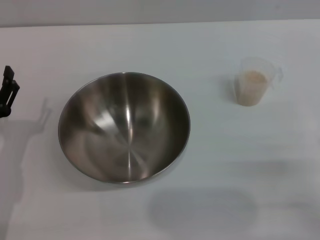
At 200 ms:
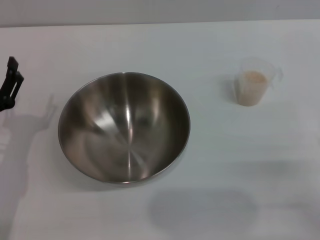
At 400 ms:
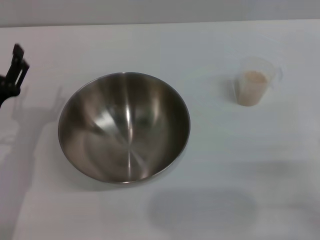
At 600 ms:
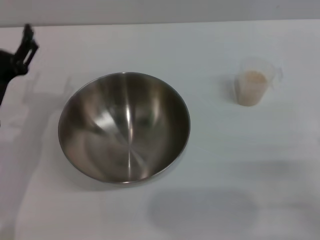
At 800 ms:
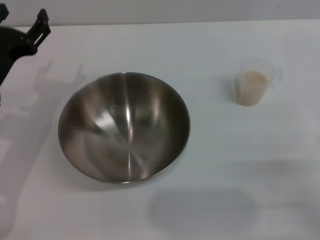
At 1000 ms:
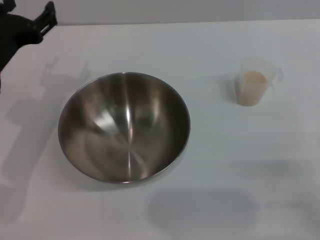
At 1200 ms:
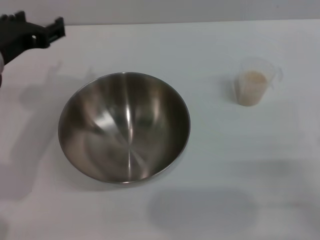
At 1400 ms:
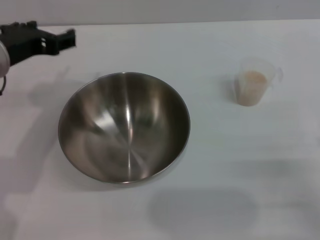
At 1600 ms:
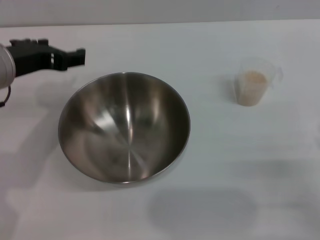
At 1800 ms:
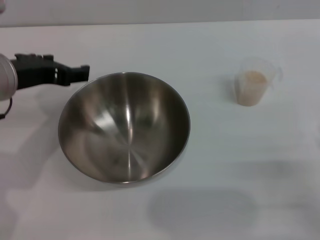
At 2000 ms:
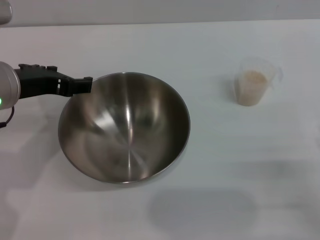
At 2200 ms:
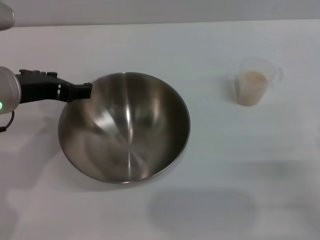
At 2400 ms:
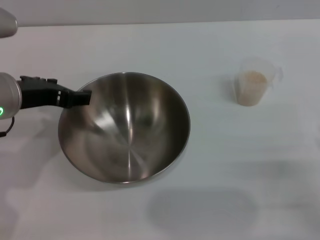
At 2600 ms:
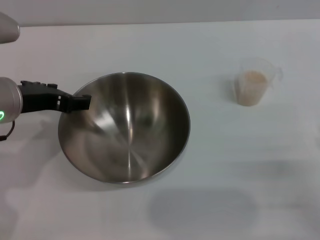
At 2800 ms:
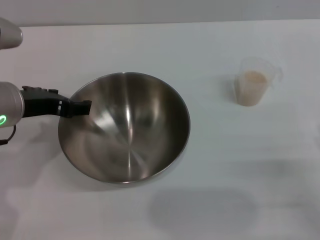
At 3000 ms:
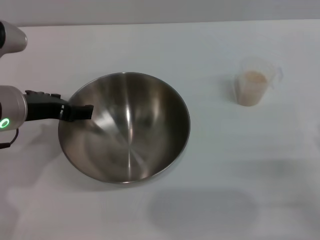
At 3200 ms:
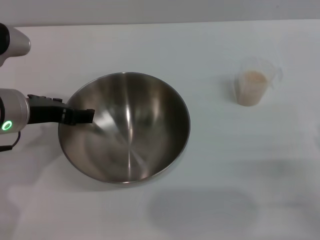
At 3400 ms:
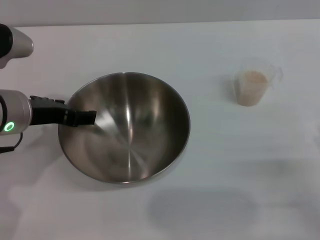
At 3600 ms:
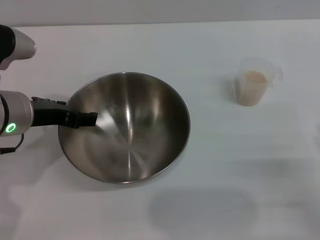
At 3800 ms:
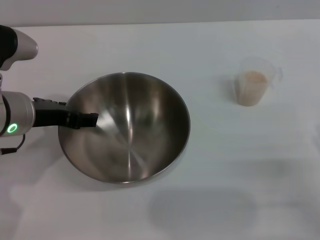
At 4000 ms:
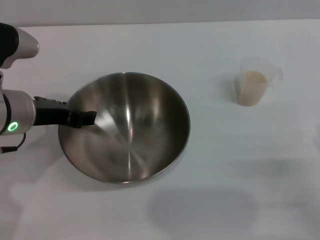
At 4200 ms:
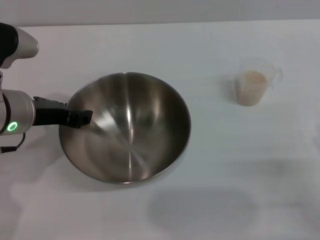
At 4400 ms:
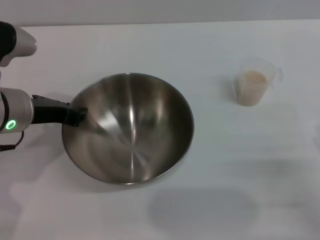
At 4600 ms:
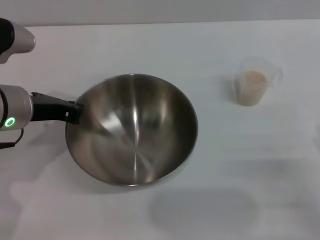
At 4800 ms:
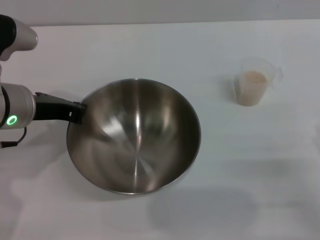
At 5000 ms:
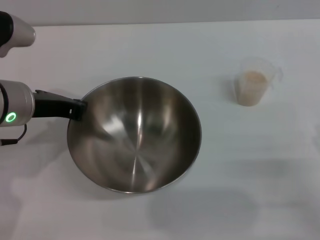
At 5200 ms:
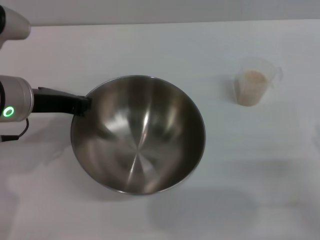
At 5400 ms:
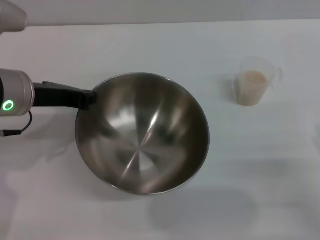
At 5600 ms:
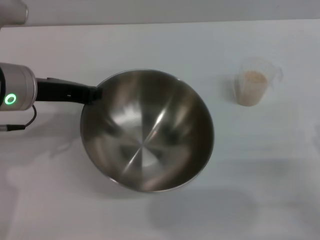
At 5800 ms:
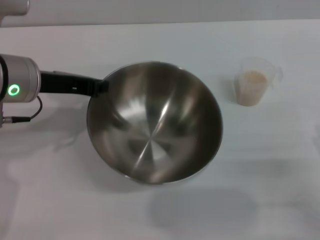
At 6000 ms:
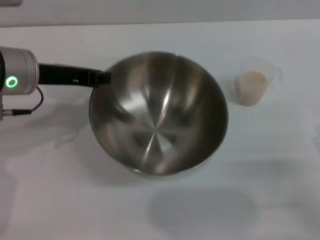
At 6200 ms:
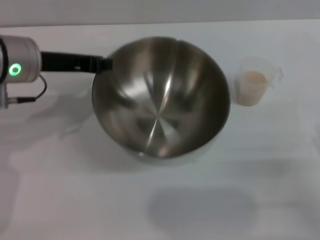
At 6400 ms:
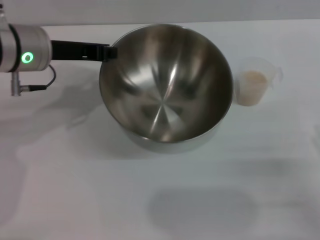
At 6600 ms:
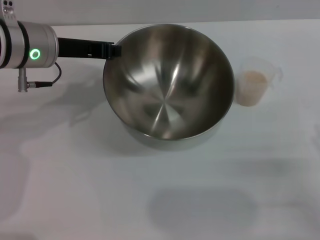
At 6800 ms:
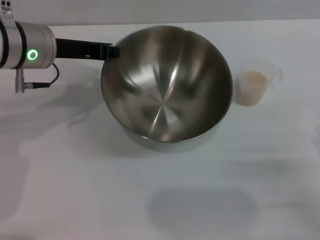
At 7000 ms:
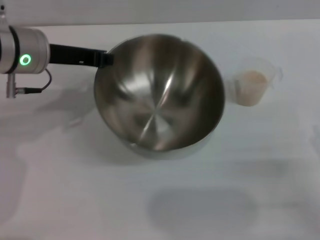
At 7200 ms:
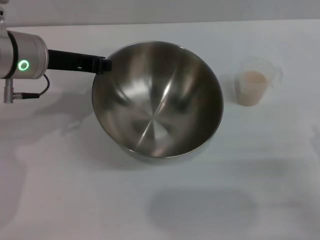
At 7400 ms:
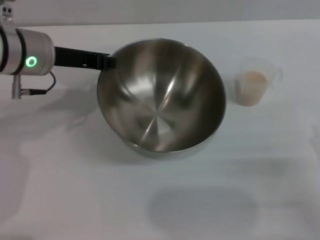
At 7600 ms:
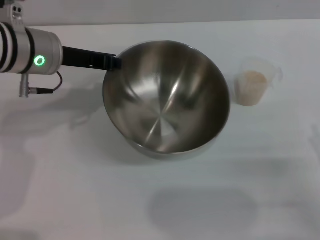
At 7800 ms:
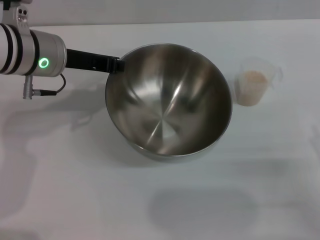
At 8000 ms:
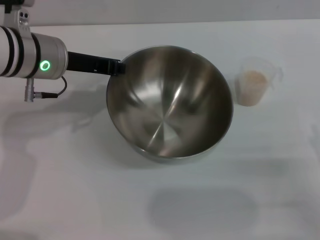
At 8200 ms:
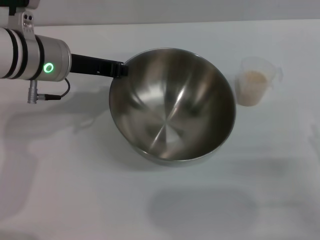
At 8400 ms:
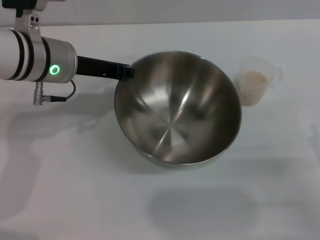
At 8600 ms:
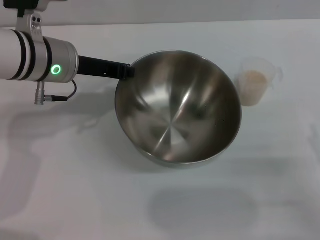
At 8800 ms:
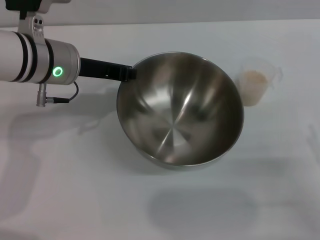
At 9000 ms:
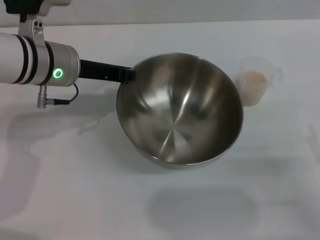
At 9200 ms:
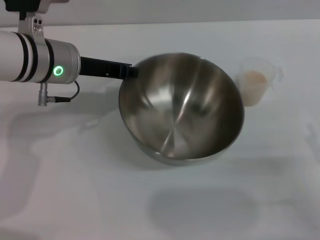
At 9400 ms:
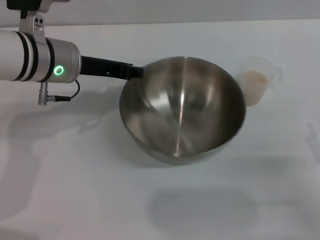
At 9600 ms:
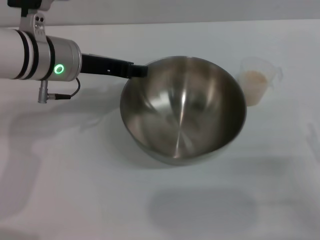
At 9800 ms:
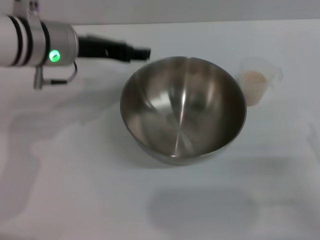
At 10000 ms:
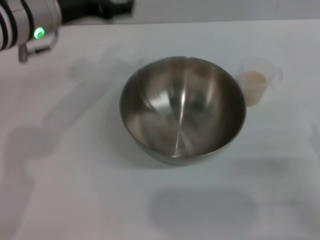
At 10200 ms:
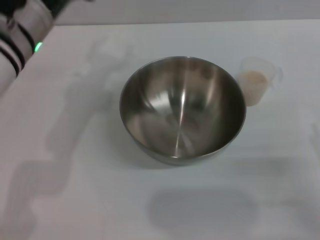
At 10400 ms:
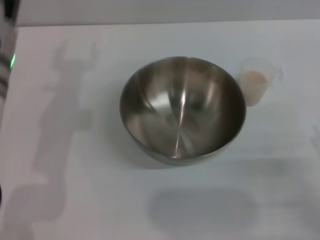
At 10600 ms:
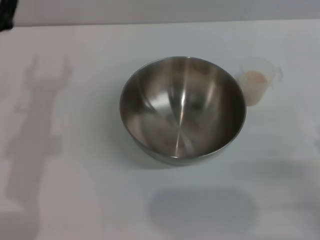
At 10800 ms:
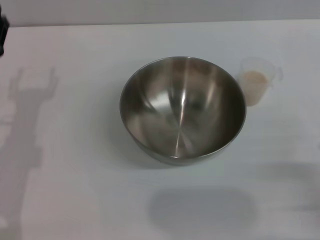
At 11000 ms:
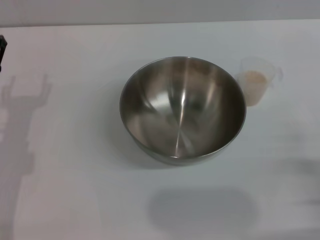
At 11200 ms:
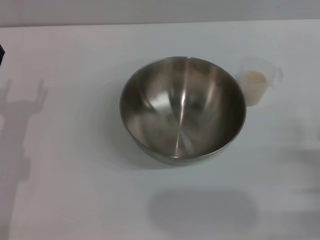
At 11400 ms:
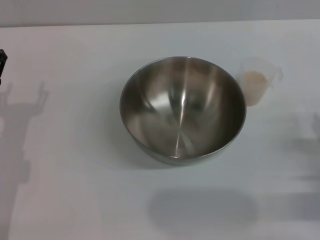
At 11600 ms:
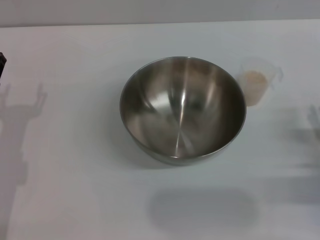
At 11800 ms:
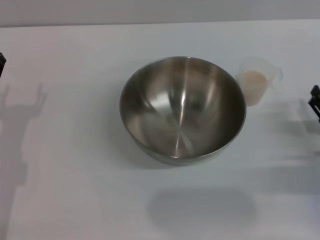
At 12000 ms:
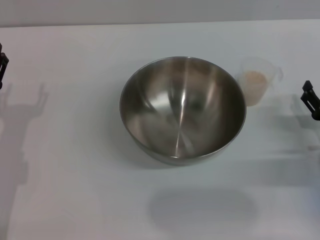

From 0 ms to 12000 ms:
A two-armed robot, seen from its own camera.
Task of the whole recording: Place the bowl in the middle of the table with one hand and pour the rice from the grain cup into it with the other hand.
Step, from 0 ms to 6000 ms: Pick up the bowl with the left gripper.
Step, from 6200 ms to 10000 ms: Place the bowl in the center of view with the left gripper.
From 0 ms to 1600 ms: The left gripper moves upward and forward, roughly 20 cm.
From 1600 ms to 3000 ms: The grippers stay close to where they were, moving slightly.
From 3000 ms to 4400 ms: The left gripper closes.
From 4400 ms to 6000 ms: The left gripper closes up.
From 7600 ms to 9000 ms: The grippers make only small movements.
From 9000 ms to 10400 ms: The left gripper goes approximately 5 cm backward, and opens its fingers.
From 10400 ms to 12000 ms: The left gripper goes some 15 cm downward, to the left and backward. The right gripper shifts about 10 cm forward.

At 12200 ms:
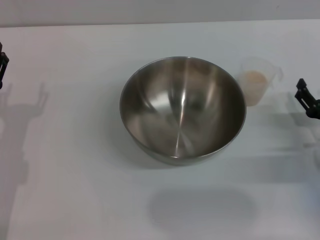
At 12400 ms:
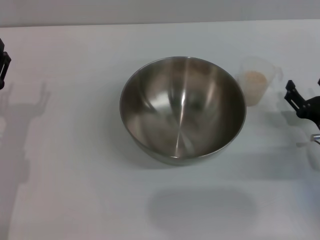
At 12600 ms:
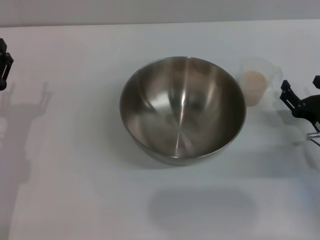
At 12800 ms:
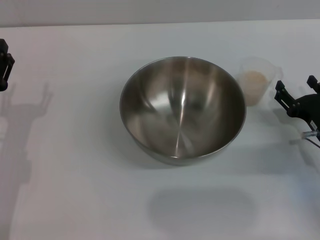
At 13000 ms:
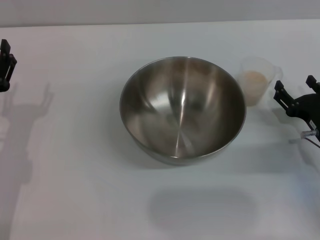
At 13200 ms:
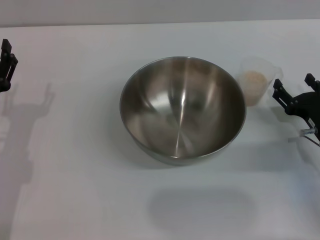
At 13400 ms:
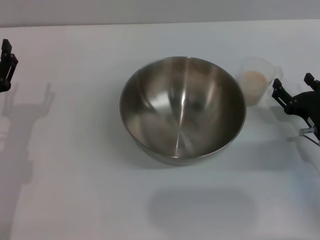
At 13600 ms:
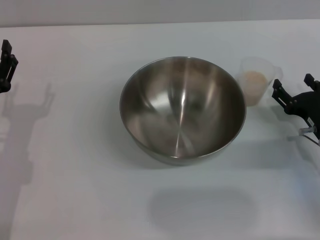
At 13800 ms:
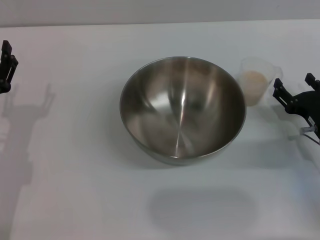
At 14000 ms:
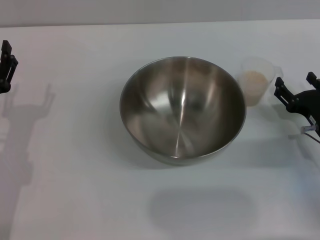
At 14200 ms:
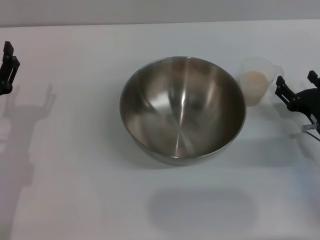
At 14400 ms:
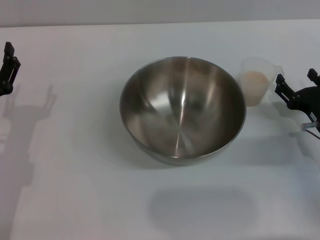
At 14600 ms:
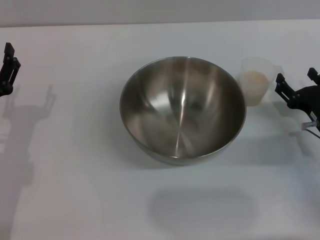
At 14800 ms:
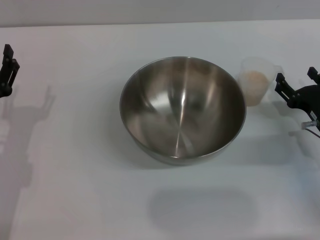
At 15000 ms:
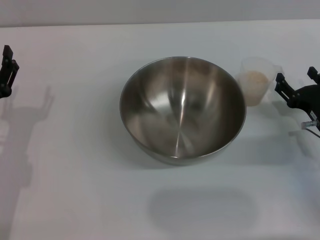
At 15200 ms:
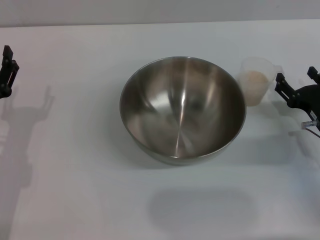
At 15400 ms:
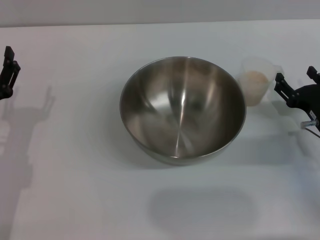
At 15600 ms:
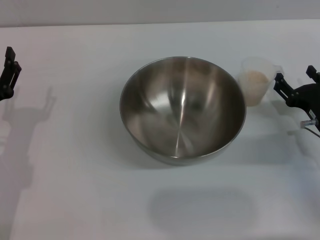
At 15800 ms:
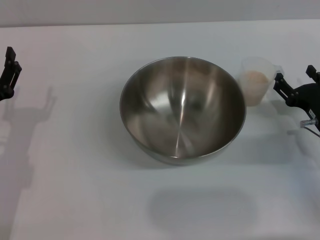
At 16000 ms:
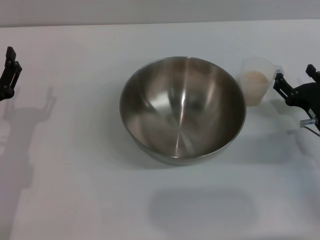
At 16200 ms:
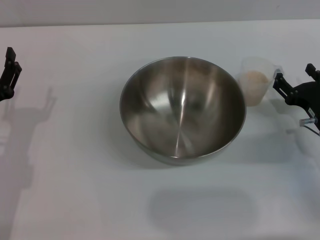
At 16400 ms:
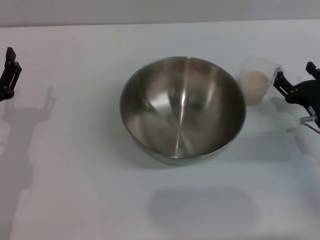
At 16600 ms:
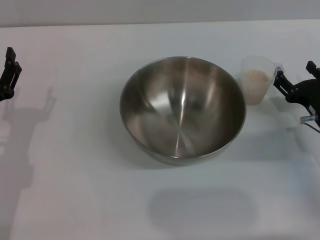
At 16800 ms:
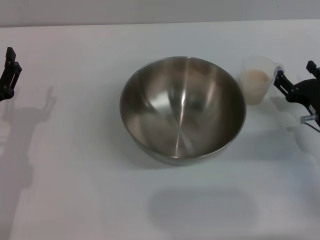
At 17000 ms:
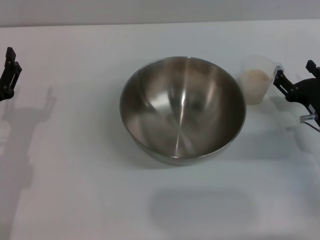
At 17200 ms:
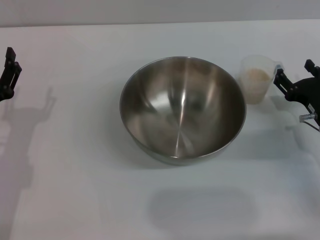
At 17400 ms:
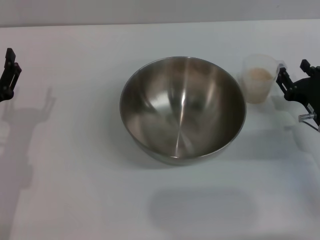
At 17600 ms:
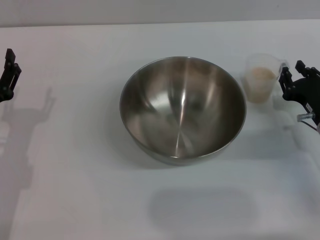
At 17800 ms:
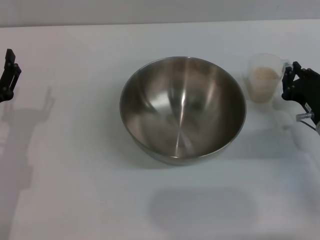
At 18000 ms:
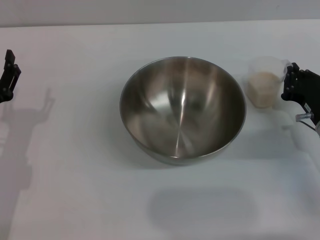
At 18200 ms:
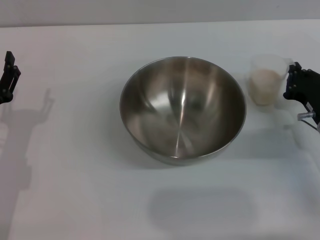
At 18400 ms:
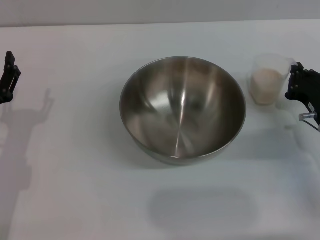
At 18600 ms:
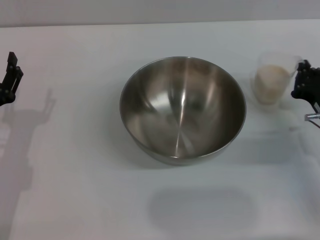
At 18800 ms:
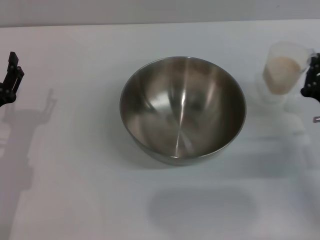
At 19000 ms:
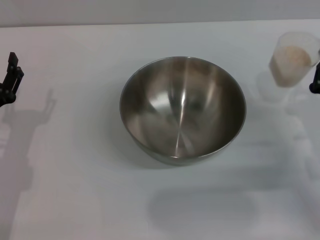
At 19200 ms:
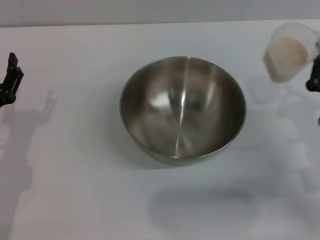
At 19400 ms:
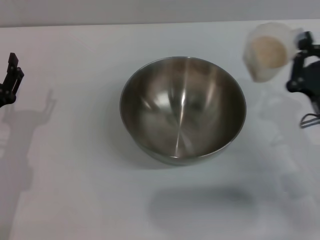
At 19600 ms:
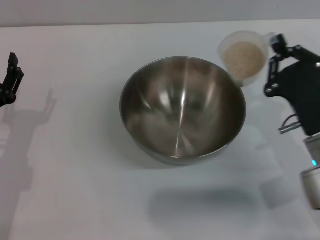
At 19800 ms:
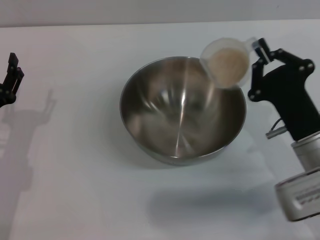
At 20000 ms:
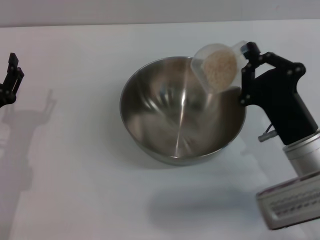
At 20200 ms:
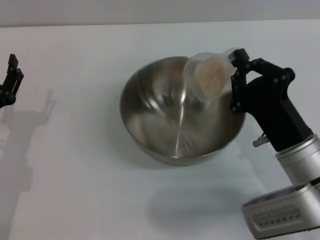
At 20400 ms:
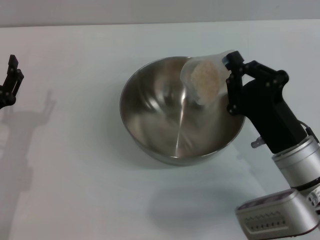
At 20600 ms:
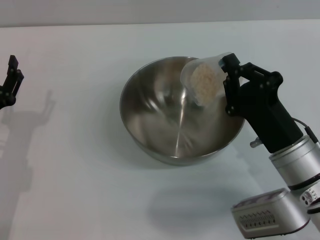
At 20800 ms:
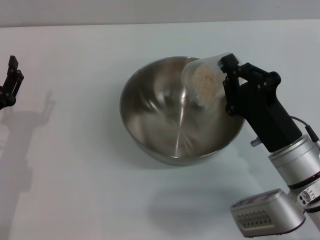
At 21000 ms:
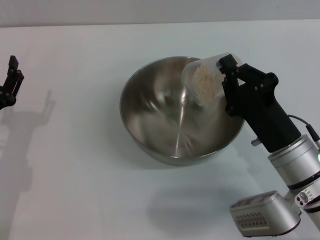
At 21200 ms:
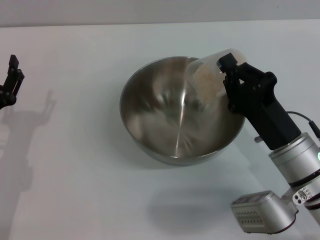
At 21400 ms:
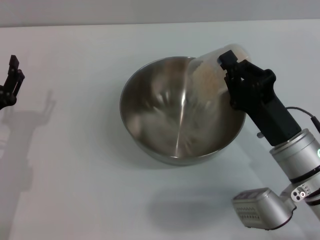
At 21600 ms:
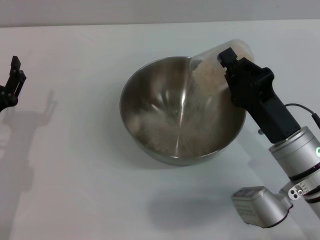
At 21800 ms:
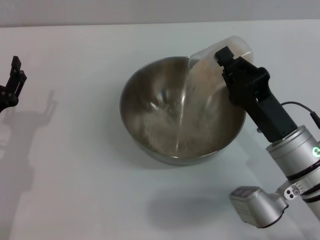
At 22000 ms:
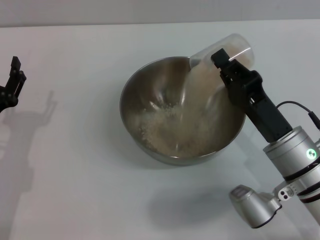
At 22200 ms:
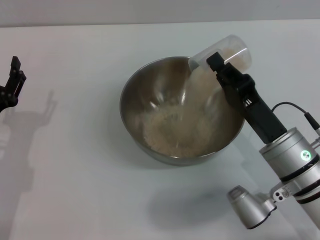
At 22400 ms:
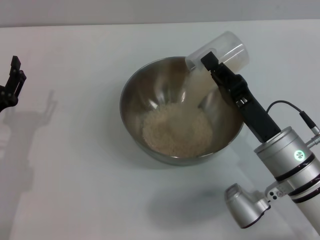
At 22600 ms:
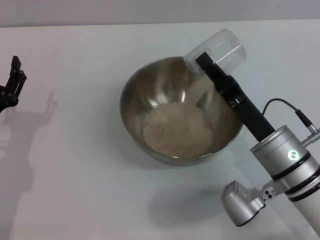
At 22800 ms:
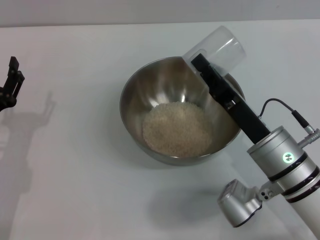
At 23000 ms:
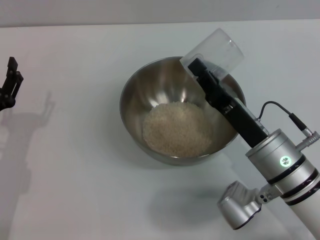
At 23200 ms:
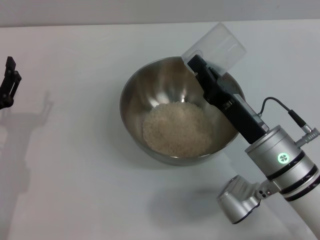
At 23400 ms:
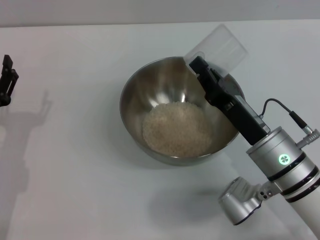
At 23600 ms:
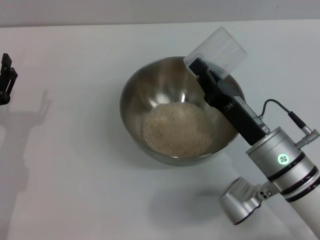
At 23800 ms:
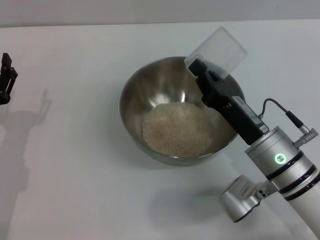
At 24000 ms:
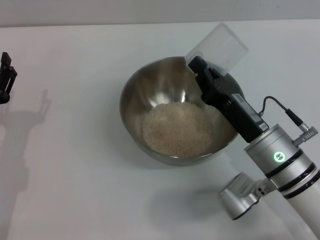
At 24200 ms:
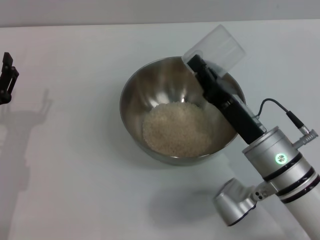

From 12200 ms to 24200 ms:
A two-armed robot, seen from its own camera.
Task of the whole recording: Place the bowl in the middle of the table with one hand and pour the rice from the grain cup into it with the other hand.
Step, from 12200 ms to 19200 ms: Pick up the cup with rice in it with the right gripper.
From 12200 ms to 13800 ms: The grippers make only small movements.
From 13800 ms to 15200 ms: Neither gripper changes place.
From 15200 ms to 16600 ms: The two grippers keep their place.
From 16600 ms to 18200 ms: The right gripper closes its fingers.
From 18200 ms to 19800 ms: The right gripper moves to the left and backward, roughly 10 cm.
From 22600 ms to 24200 ms: The grippers move only a little.
